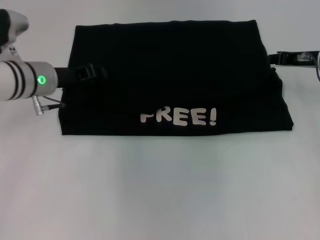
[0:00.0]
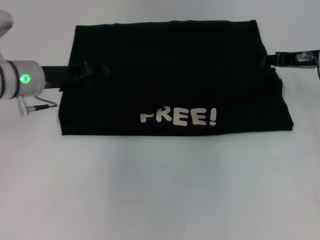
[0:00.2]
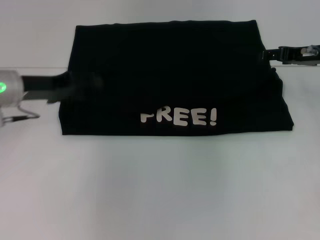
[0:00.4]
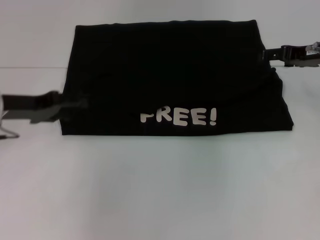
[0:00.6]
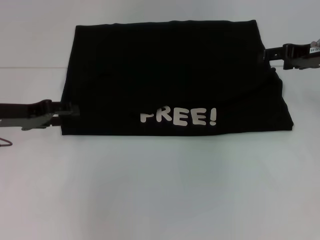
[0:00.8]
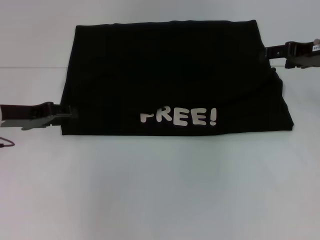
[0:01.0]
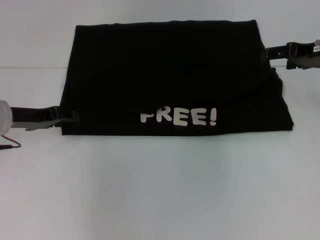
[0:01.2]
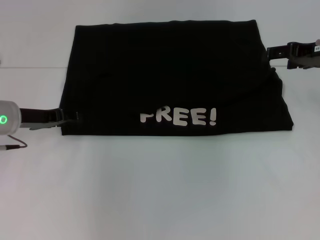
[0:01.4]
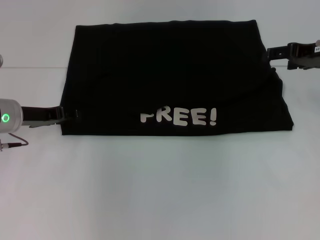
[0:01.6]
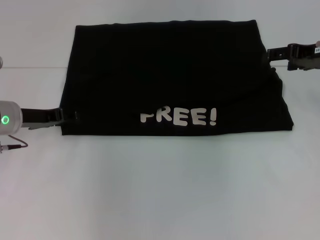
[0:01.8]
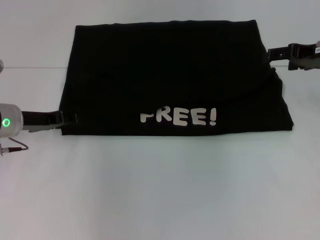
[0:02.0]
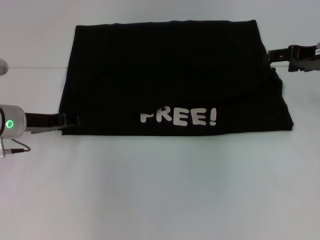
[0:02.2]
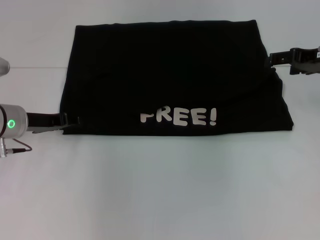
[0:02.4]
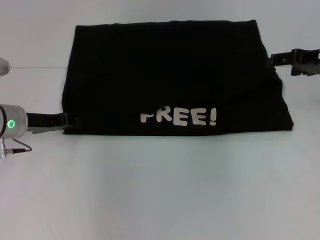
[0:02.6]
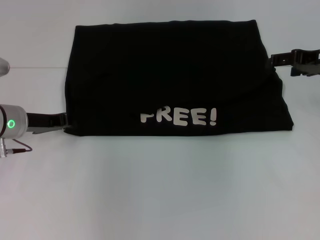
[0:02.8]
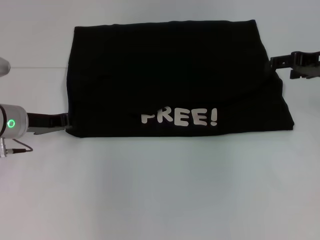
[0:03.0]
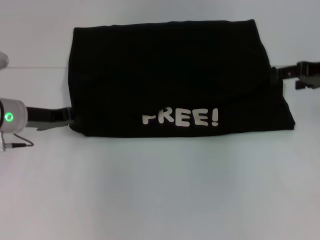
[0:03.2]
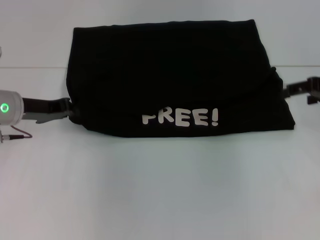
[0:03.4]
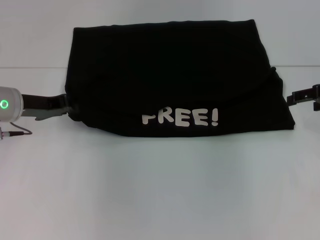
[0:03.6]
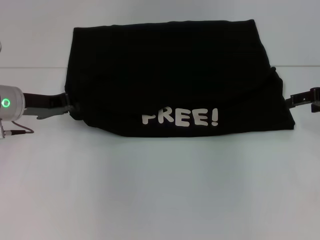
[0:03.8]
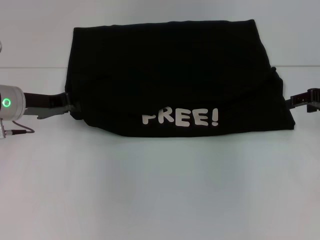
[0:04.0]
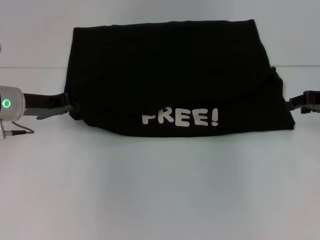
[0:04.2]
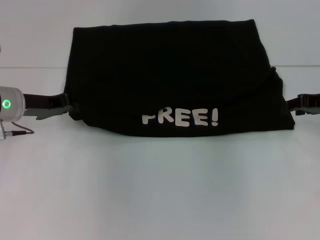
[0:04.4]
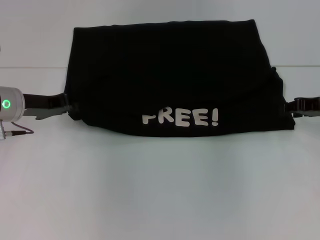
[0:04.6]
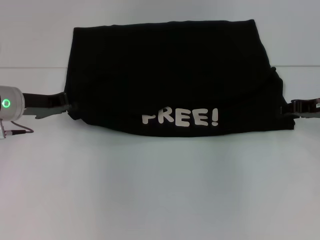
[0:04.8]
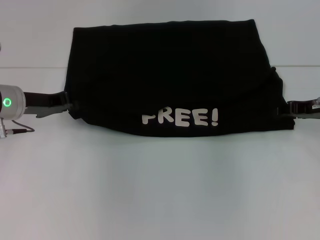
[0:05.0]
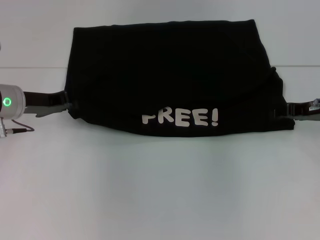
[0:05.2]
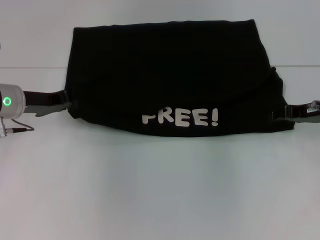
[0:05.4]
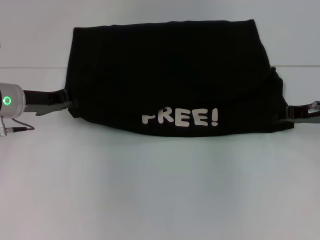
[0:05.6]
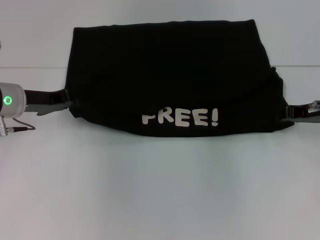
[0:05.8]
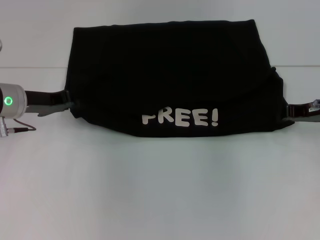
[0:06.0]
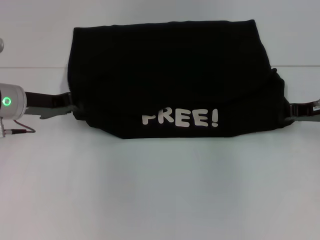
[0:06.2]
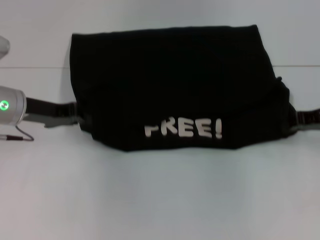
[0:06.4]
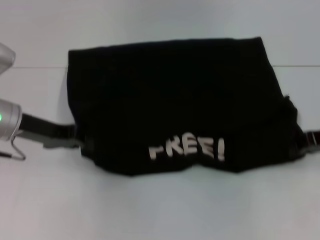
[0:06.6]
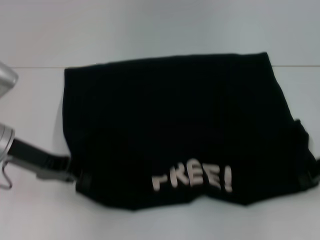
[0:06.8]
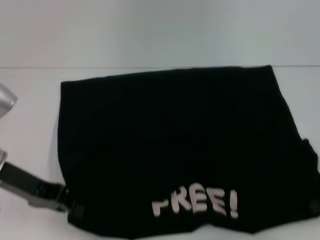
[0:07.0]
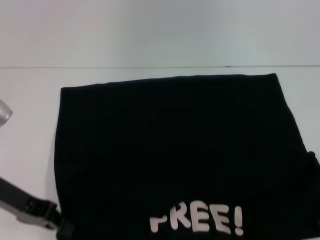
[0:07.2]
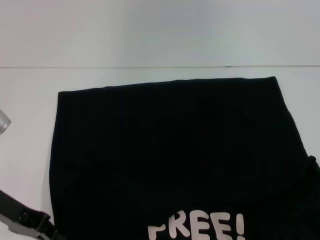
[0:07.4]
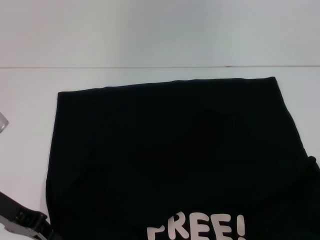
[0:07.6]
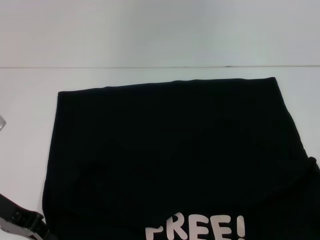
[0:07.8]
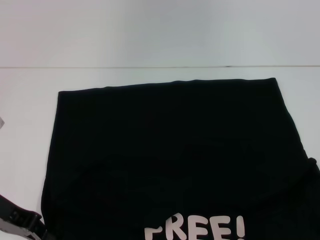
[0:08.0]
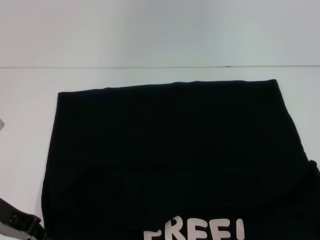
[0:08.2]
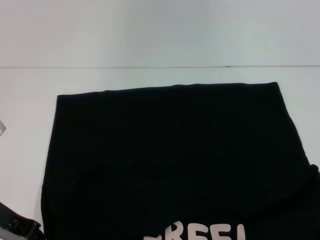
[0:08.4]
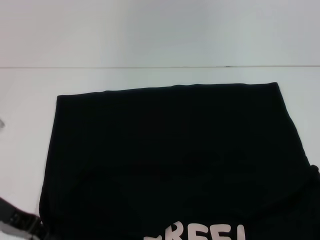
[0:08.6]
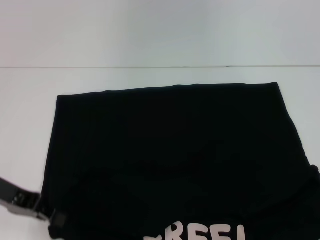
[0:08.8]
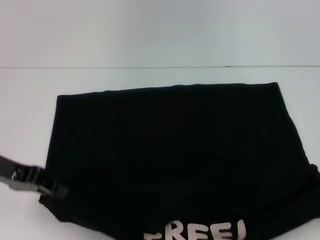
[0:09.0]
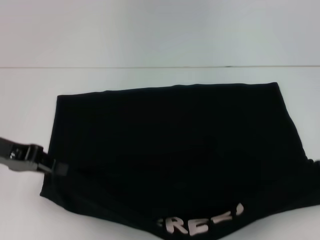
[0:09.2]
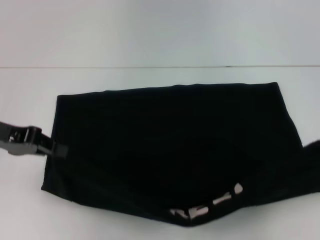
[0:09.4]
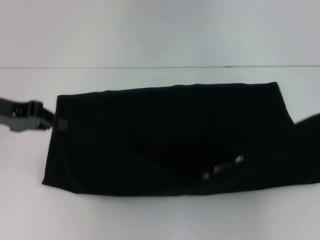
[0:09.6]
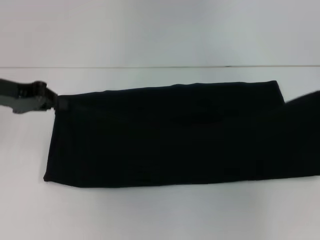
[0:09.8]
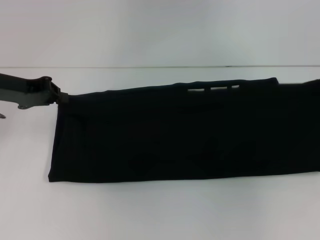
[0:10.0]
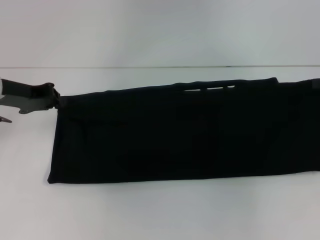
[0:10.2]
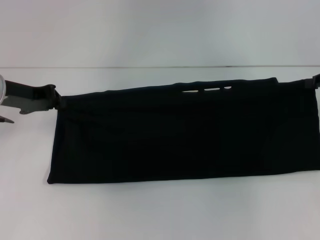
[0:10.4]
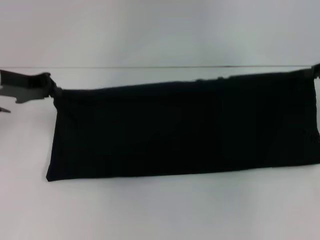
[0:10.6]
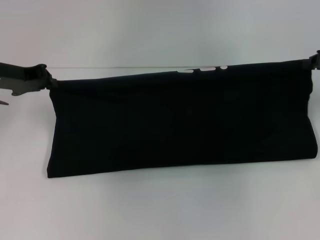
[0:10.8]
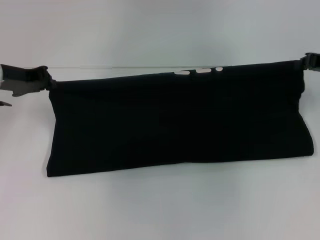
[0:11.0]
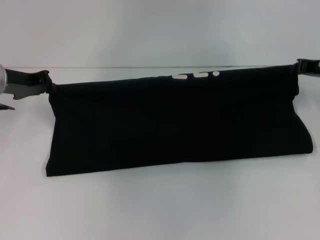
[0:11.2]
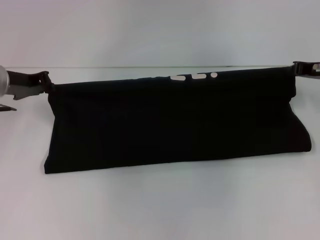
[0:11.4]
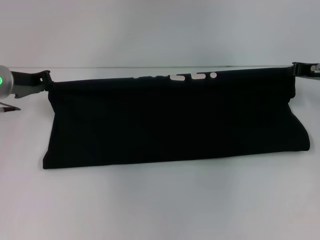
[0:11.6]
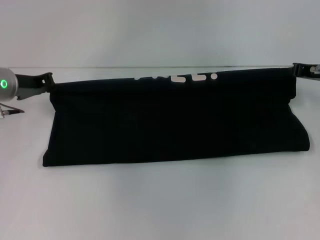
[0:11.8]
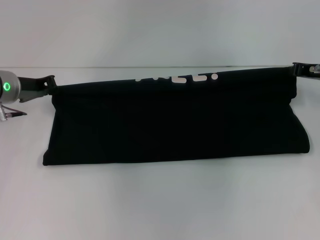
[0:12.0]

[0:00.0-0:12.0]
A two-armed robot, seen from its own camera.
Step, 0:00.2 to 0:07.4: Pull the clothes with your left hand.
Step, 0:00.2 to 0:07.4: Pull the clothes with your right hand.
0:00.0 to 0:01.6: The right gripper opens its fingers; the left gripper goes about 5 cm to the left, and opens.
0:01.6 to 0:03.0: The left gripper closes its fingers.
0:03.0 to 0:04.4: The right gripper shifts by some 5 cm.
0:04.4 to 0:06.0: The right gripper closes its fingers.
0:06.0 to 0:07.6: The right gripper shifts some 10 cm backward and to the right. Meanwhile the left gripper heads backward, covering roughly 10 cm.
0:07.6 to 0:09.0: There are only small adjustments of the grippers.
0:09.0 to 0:10.4: Both grippers travel together forward, approximately 10 cm.
0:10.4 to 0:12.0: The right gripper heads to the left, covering roughly 5 cm.

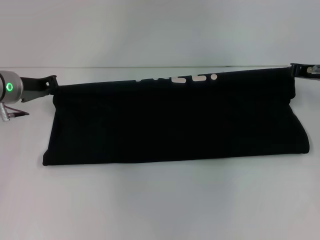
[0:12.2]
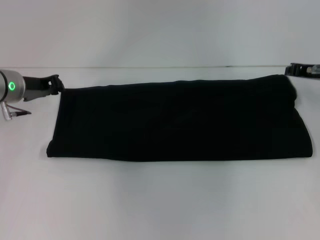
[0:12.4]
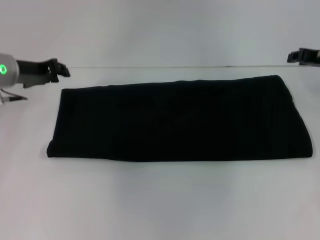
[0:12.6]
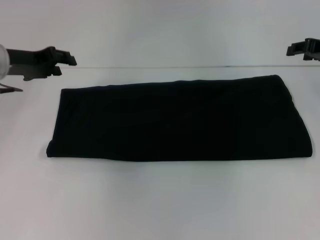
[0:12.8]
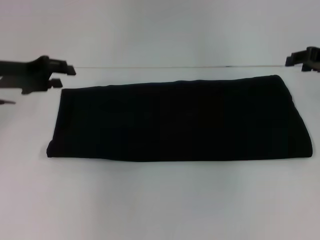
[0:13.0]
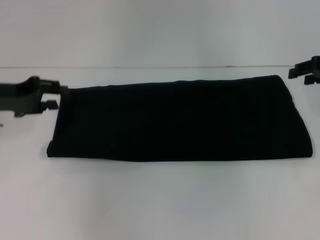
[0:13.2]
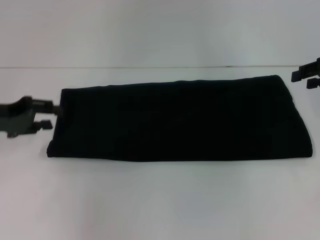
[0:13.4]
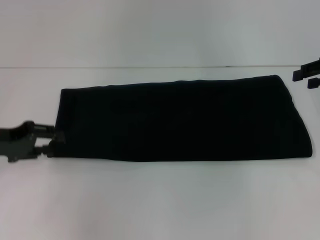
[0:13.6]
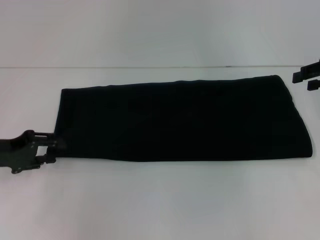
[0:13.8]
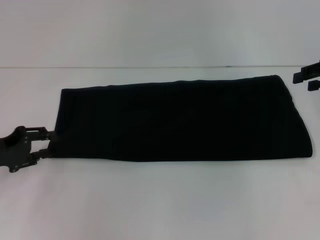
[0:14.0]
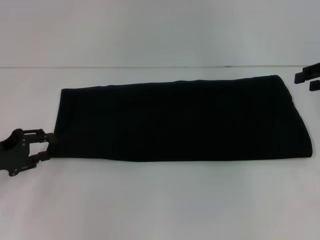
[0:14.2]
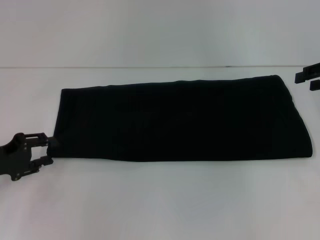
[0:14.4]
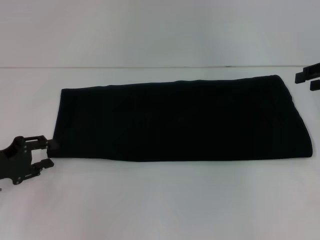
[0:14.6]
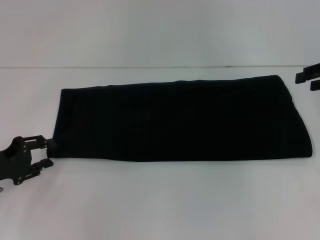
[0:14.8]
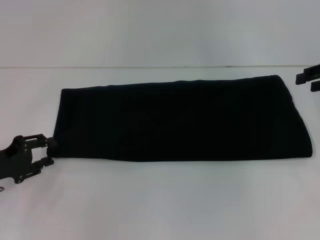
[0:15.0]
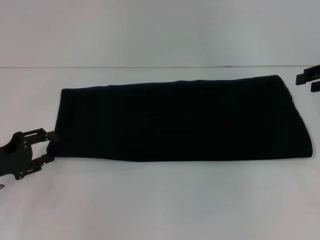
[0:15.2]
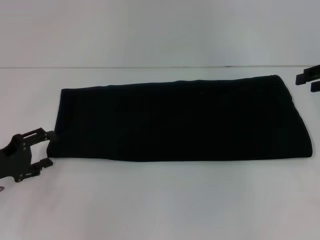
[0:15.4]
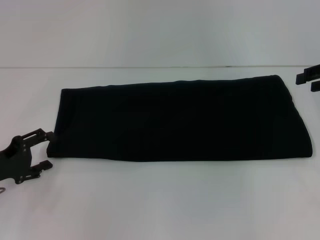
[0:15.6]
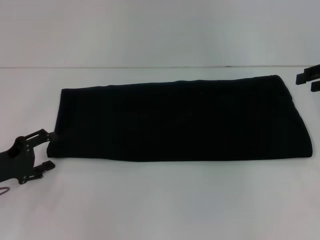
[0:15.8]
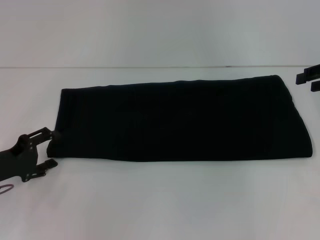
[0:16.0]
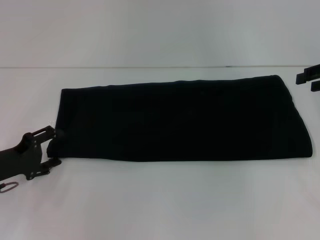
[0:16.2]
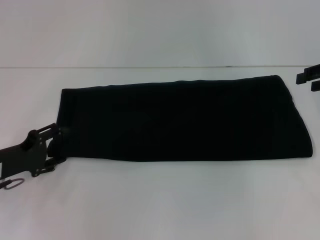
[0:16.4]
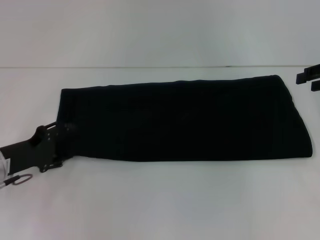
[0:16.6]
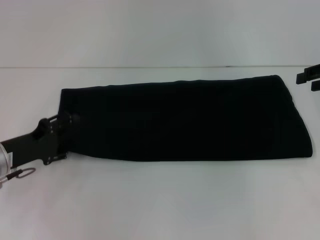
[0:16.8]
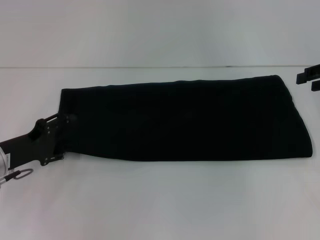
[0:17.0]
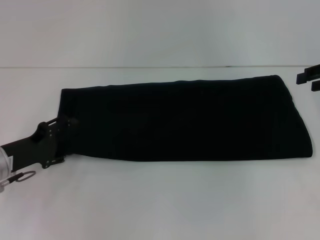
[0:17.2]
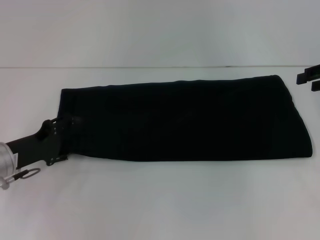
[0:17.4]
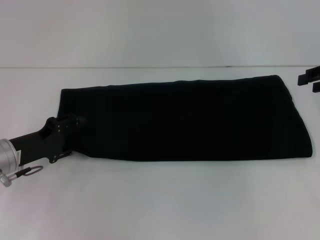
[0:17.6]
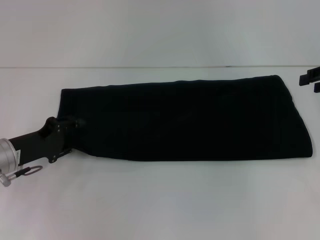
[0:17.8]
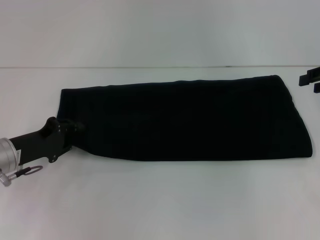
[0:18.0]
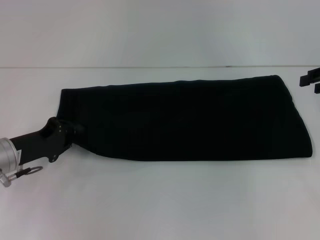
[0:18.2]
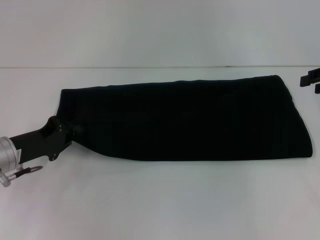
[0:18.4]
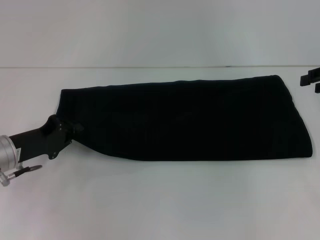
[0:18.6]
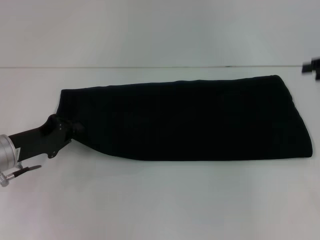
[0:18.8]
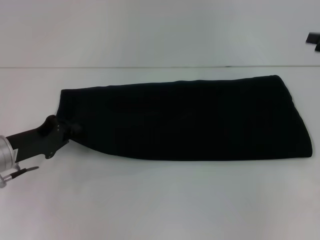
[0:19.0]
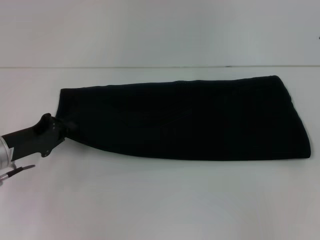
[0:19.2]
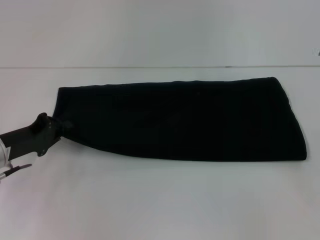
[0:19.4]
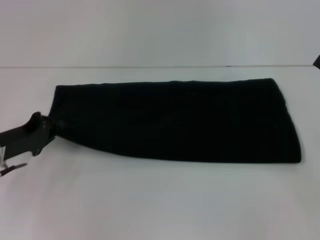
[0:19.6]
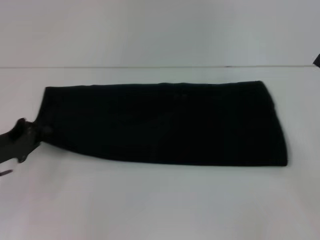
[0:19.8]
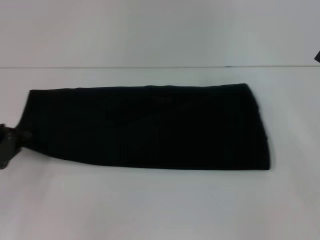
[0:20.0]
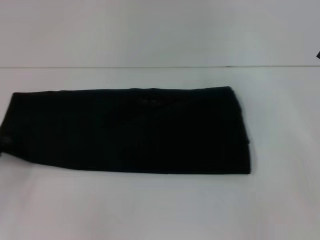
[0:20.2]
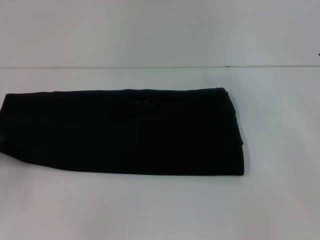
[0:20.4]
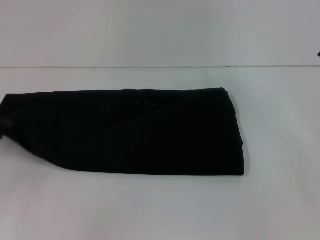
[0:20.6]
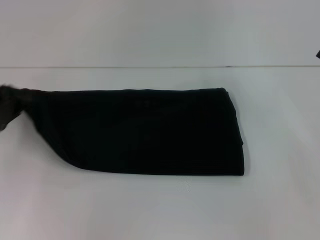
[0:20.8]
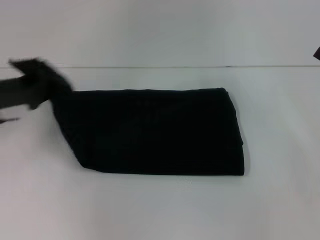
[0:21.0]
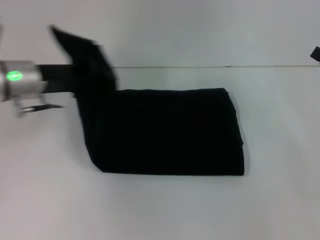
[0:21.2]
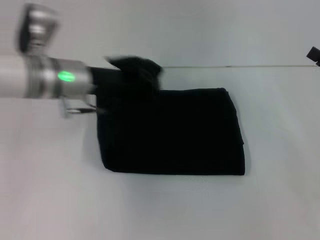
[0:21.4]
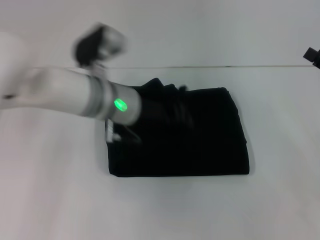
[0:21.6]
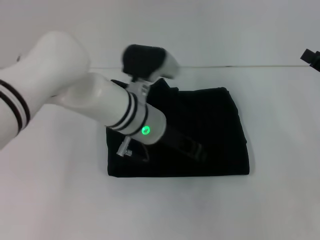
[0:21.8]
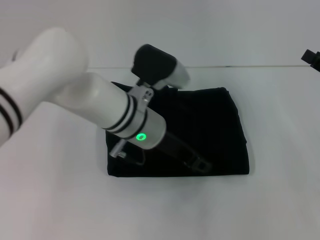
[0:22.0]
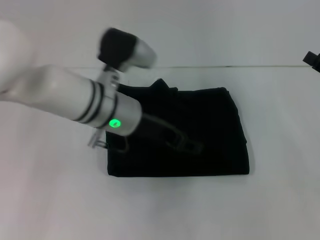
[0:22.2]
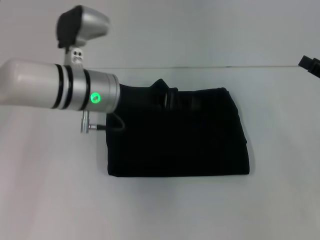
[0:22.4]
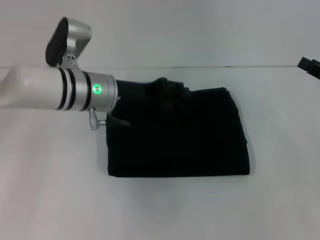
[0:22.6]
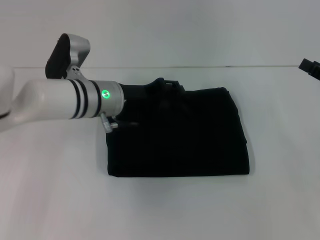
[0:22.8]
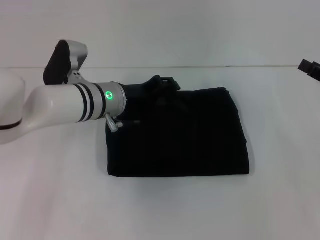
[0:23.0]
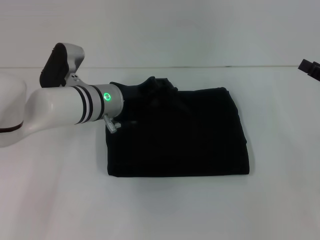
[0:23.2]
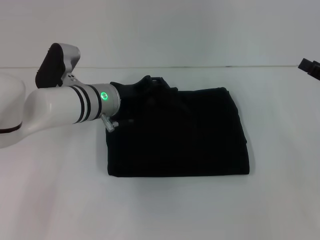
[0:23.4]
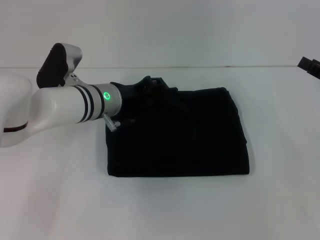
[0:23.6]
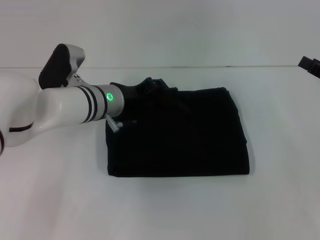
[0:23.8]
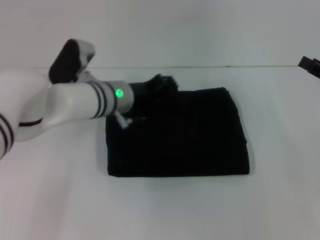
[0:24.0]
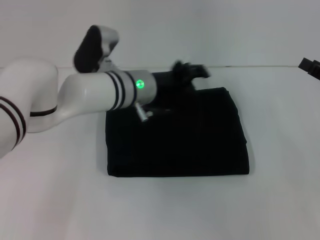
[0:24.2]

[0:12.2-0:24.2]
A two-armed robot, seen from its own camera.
0:12.2 to 0:13.8: The right gripper moves upward, roughly 5 cm, and opens, while the left gripper is displaced backward and to the left by some 10 cm, and opens.
0:15.2 to 0:16.6: The grippers stay close to where they were, moving slightly.
0:16.6 to 0:18.2: The left gripper closes up.
0:18.2 to 0:19.8: The right gripper goes some 15 cm backward and downward.
0:19.8 to 0:21.2: The left gripper moves upward, to the right and forward, approximately 15 cm.
0:21.2 to 0:22.6: The left gripper shifts approximately 10 cm to the right, and opens its fingers.
0:22.6 to 0:24.2: The left gripper moves to the right, some 5 cm.
